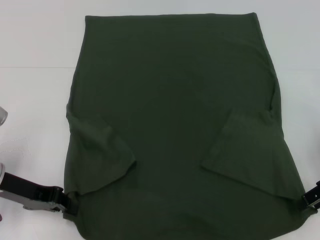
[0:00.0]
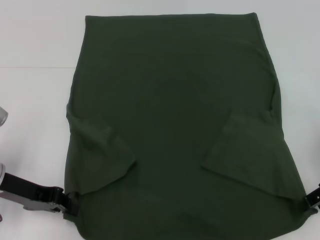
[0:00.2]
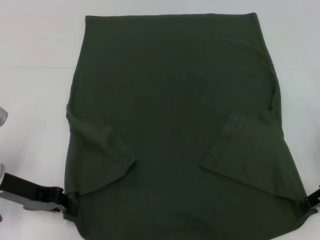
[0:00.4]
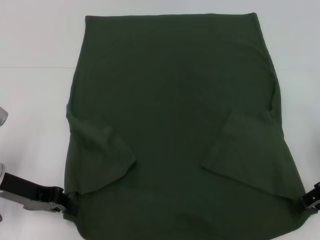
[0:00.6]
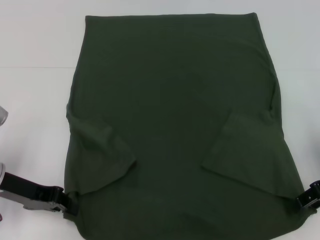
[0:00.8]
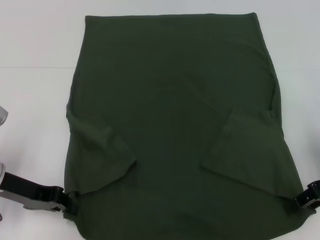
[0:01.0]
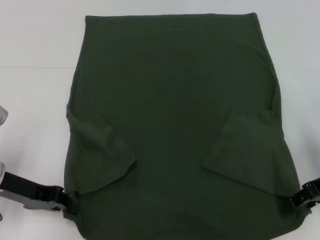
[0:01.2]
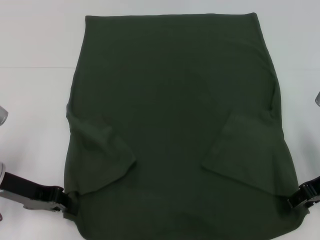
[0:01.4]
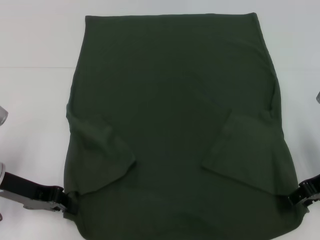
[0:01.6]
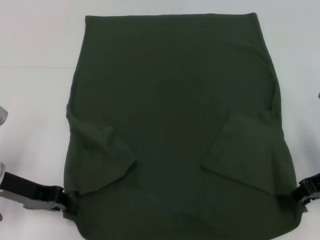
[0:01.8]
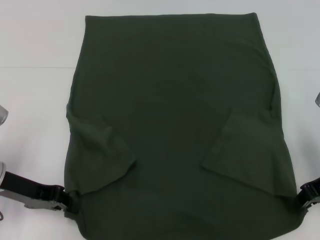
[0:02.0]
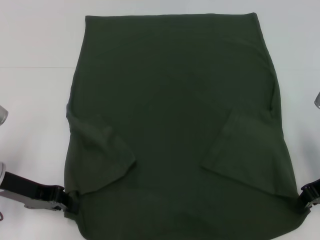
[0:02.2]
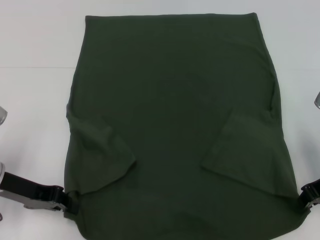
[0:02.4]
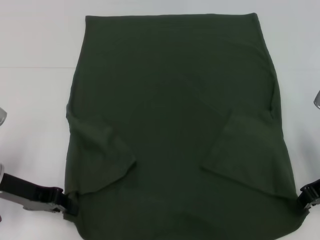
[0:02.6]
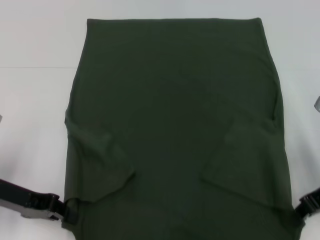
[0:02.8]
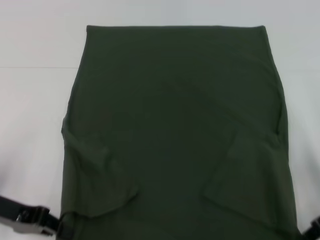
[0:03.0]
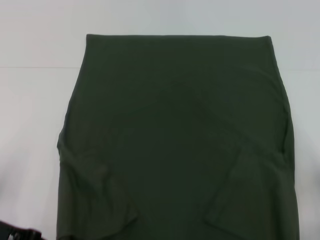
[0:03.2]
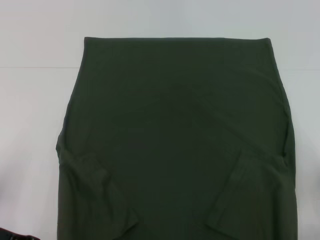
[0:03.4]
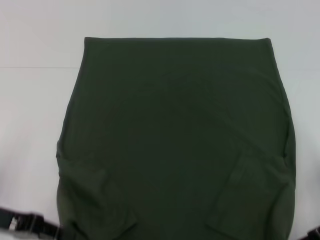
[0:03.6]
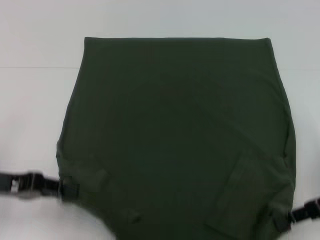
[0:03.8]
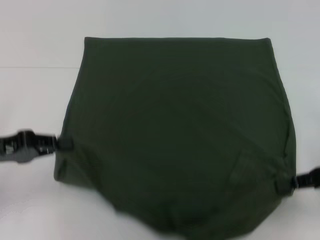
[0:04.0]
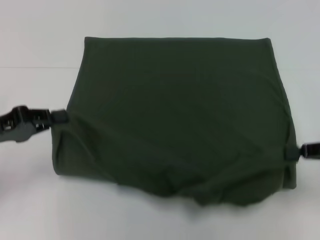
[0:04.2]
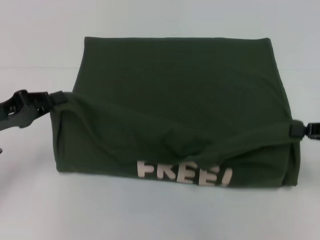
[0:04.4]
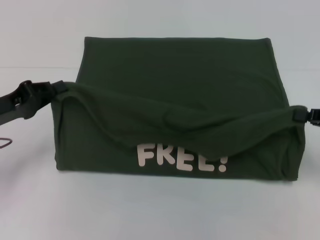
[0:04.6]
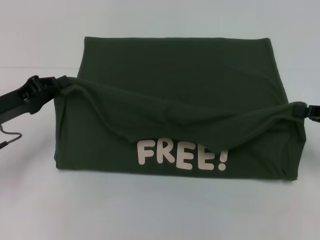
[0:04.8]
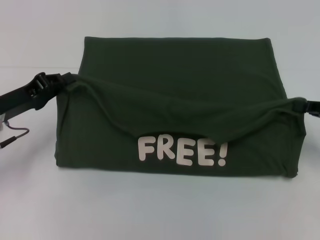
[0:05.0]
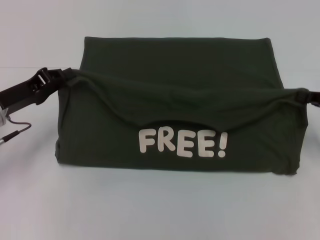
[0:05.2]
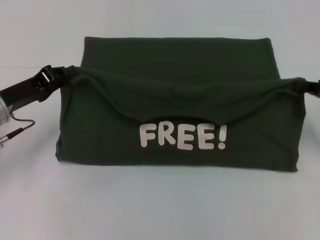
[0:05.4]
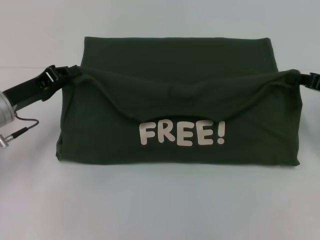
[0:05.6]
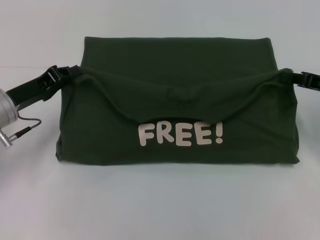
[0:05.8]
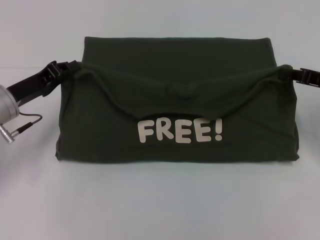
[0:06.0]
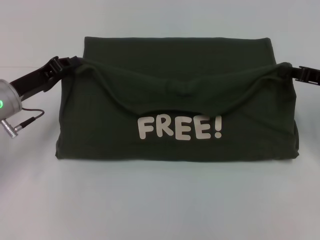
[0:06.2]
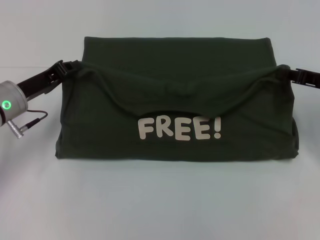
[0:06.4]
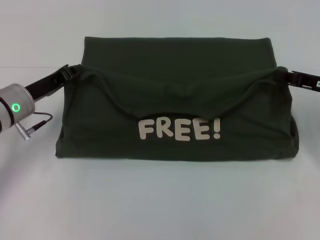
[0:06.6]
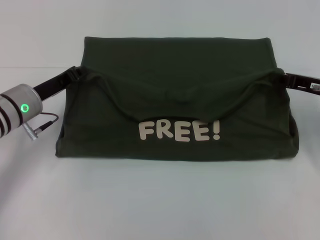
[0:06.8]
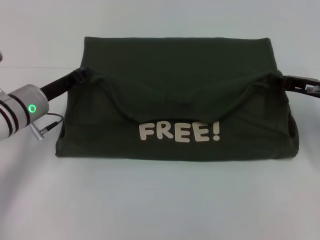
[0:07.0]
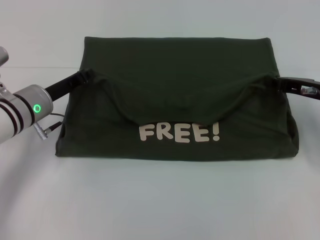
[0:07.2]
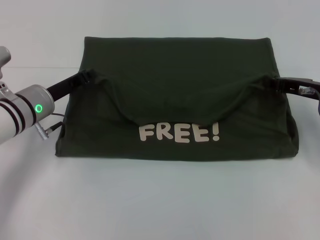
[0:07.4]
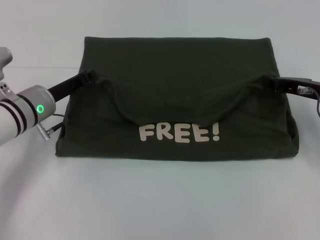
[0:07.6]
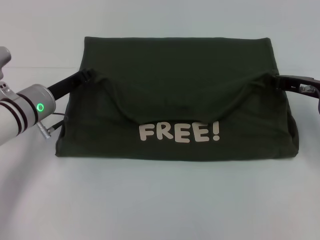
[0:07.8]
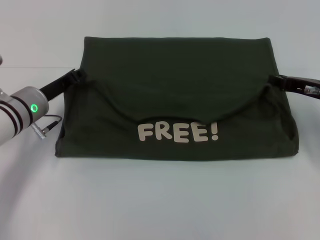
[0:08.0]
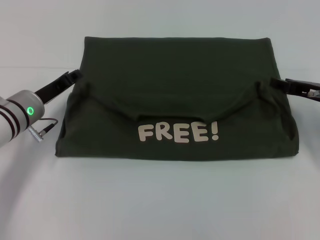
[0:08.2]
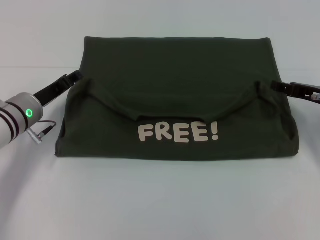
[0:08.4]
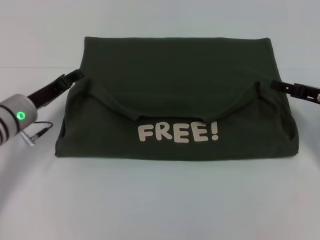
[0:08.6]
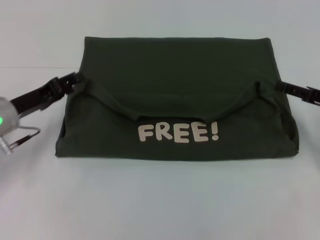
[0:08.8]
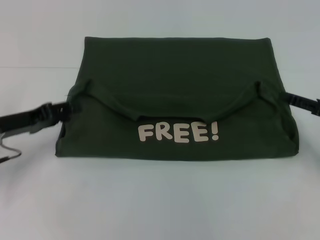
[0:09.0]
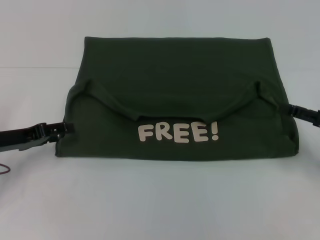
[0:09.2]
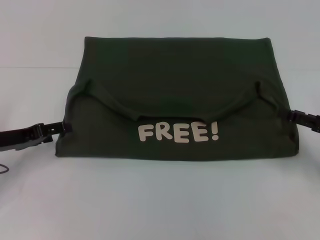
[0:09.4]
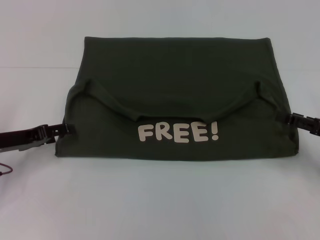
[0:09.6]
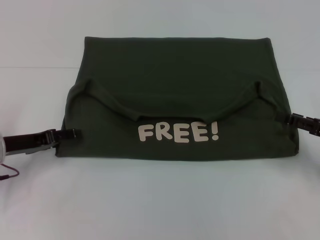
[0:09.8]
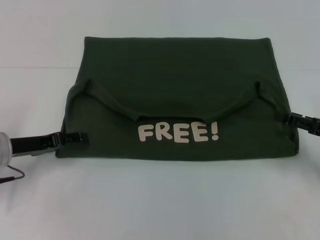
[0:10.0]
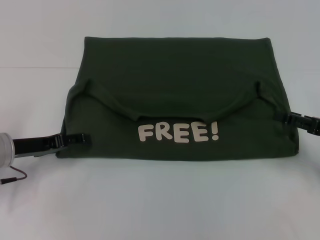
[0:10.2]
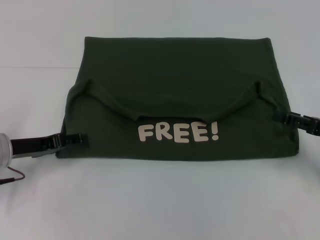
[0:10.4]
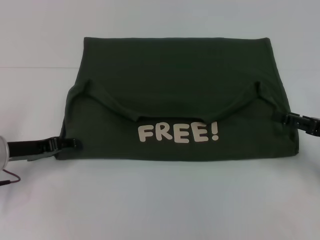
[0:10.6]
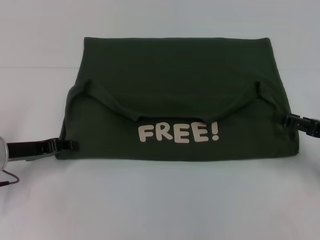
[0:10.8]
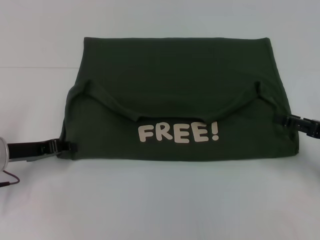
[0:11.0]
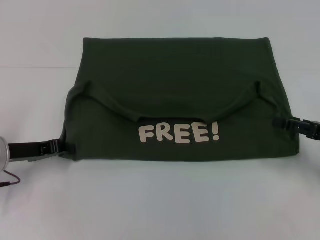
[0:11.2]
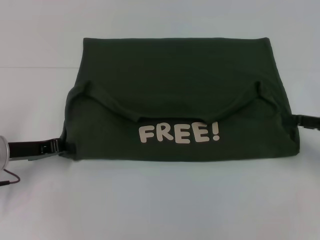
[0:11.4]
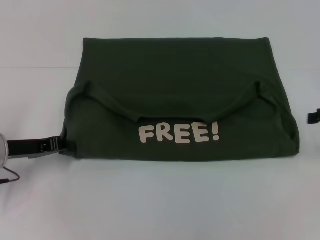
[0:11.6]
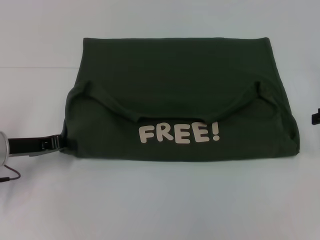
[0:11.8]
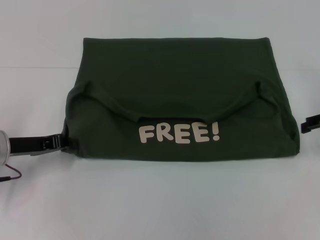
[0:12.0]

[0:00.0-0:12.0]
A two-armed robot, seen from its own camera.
Step, 0.0 to 9.0 s: Fold the clothes with your left hand.
Step, 0.0 to 9.0 s: Fold the clothes with your right hand.
0.0 to 1.6 s: The grippers move only a little.
1.6 to 3.0 s: The right gripper closes its fingers.
3.0 to 4.4 s: The right gripper heads to the right, covering some 5 cm.
4.4 to 6.0 s: Both grippers move forward, some 5 cm.
6.0 to 7.6 s: The right gripper moves approximately 5 cm, while the left gripper moves roughly 5 cm.
7.6 to 9.0 s: The right gripper heads backward and to the right, covering some 10 cm, and opens its fingers. The left gripper shifts about 10 cm to the left and backward, and opens its fingers.
9.0 to 10.4 s: The grippers stay close to where they were, moving slightly.
10.4 to 12.0 s: The left gripper closes. The right gripper shifts about 10 cm forward and upward.

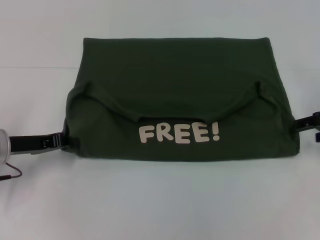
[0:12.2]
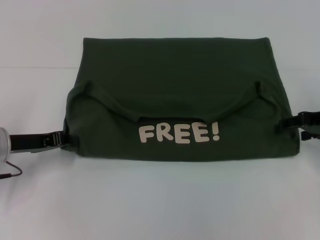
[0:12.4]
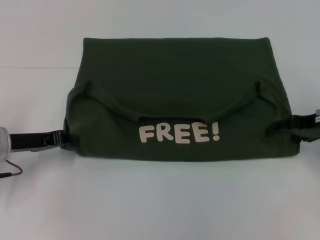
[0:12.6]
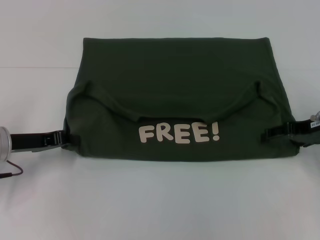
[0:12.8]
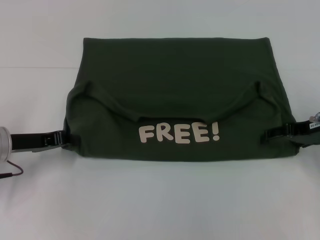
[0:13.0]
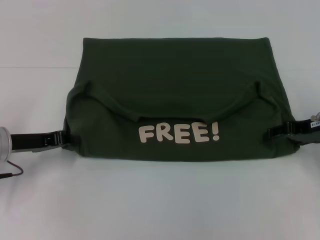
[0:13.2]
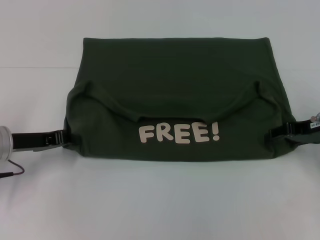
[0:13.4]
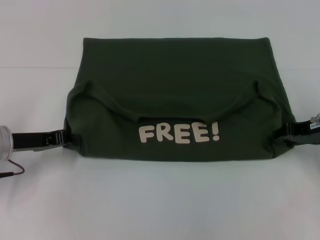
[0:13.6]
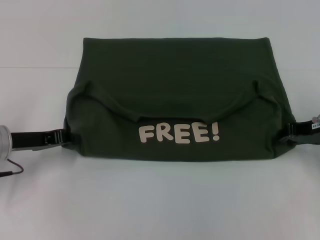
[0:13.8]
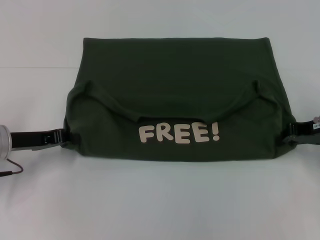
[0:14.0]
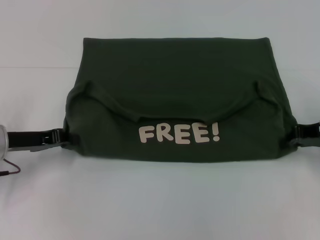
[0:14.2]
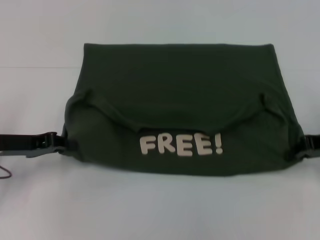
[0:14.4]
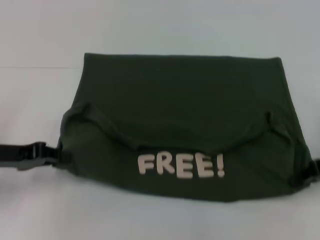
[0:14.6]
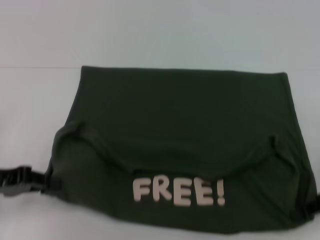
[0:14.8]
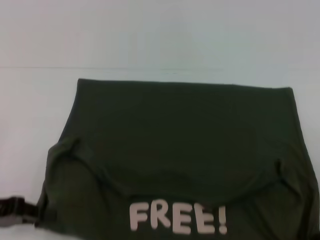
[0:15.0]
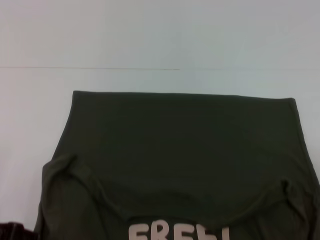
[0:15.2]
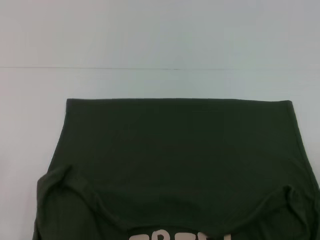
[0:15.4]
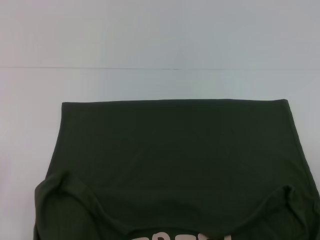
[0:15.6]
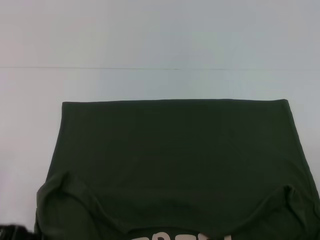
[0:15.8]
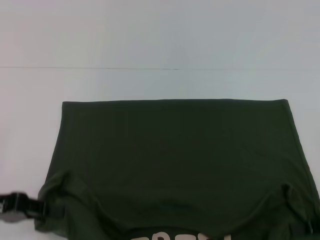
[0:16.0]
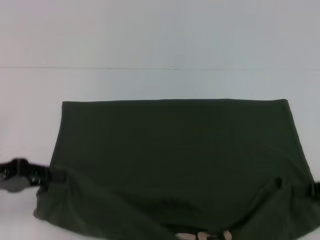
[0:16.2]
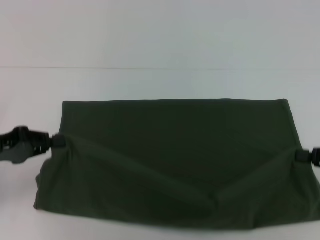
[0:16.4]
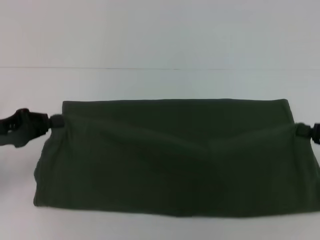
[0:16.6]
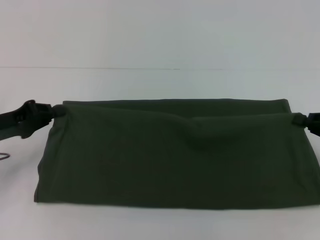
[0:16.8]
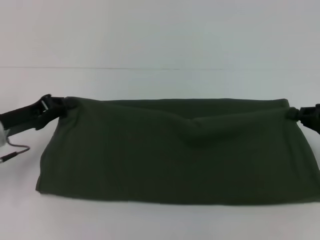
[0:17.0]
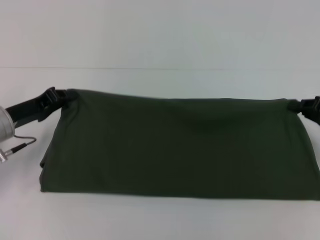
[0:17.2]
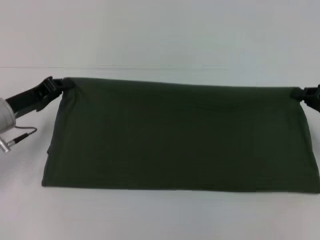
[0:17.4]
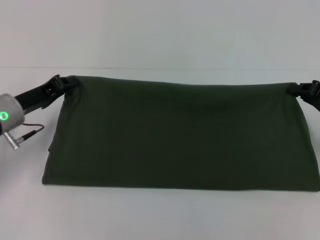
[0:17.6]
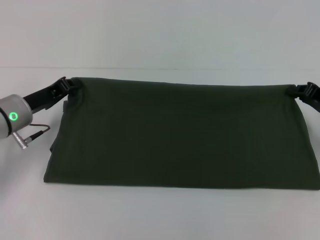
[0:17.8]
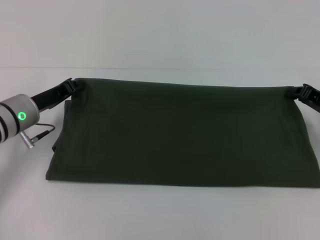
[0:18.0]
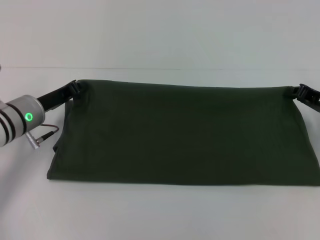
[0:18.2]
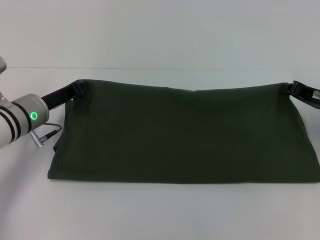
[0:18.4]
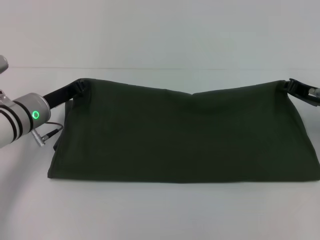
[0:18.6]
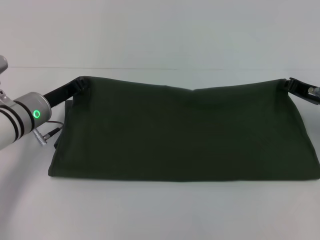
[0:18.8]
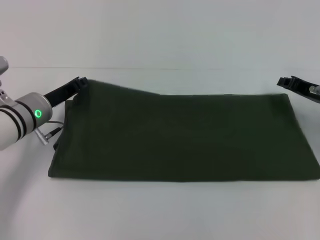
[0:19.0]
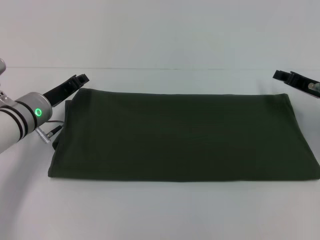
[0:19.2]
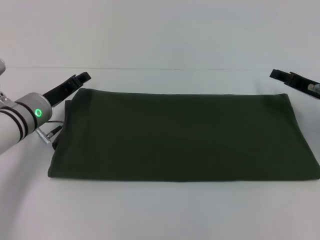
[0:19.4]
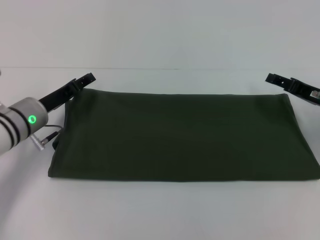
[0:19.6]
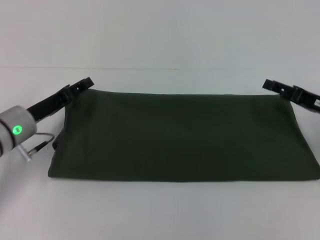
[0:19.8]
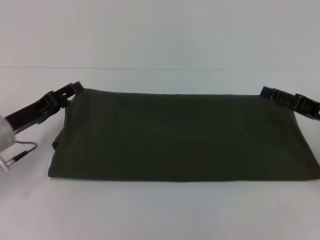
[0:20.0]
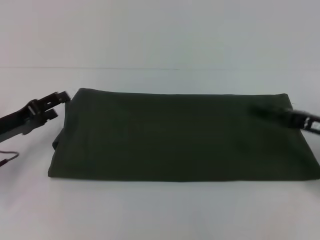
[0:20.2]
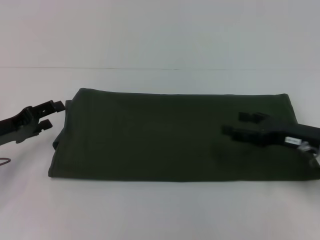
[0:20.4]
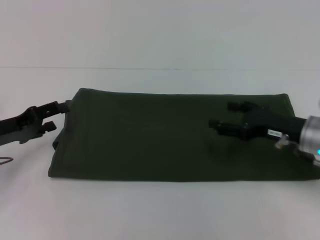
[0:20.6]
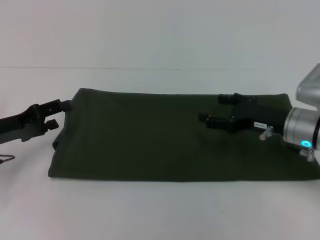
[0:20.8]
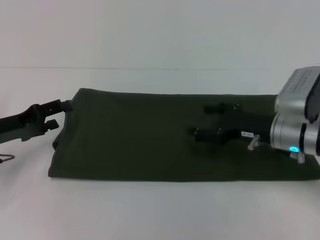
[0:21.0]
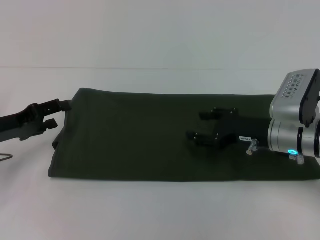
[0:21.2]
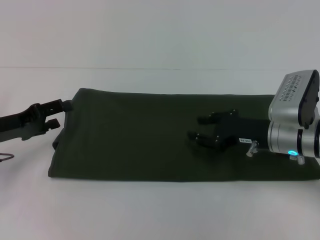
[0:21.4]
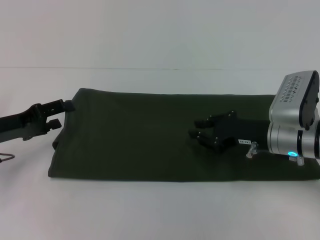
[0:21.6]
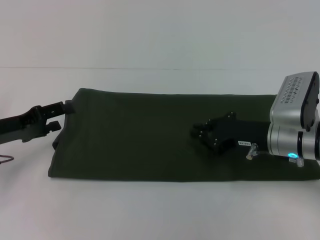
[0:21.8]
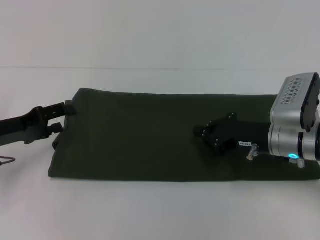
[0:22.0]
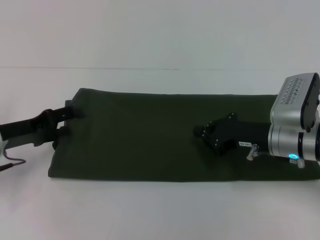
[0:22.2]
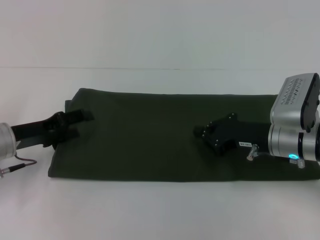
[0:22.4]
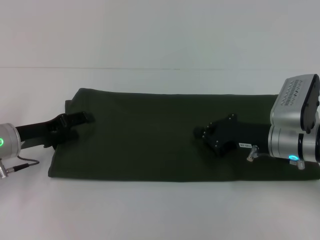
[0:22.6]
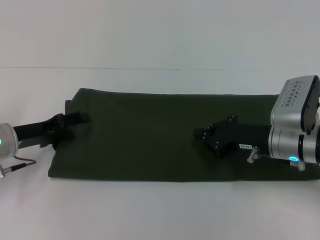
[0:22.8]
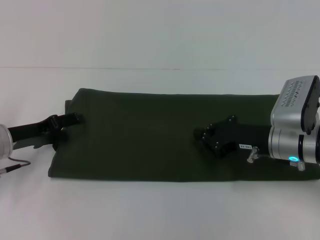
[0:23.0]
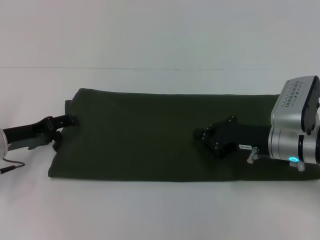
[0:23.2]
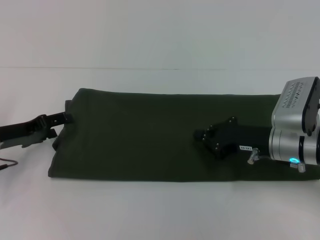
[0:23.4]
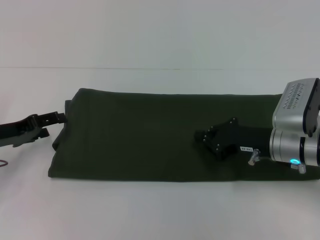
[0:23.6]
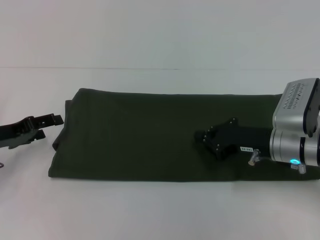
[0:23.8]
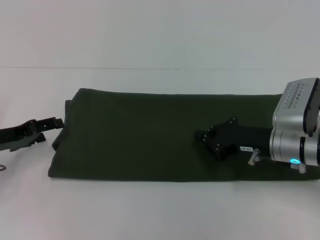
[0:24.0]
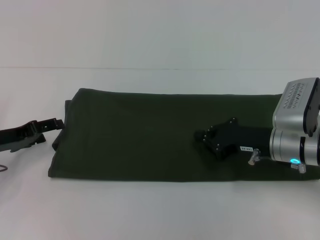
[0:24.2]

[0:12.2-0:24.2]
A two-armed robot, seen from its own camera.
Step, 12.2 to 15.4 s: Pull the clothes with your left hand.
Step, 12.2 to 15.4 s: Pull the clothes with your right hand.
Step, 15.6 to 19.4 s: Fold the clothes with your right hand.
12.2 to 13.8 s: The right gripper closes its fingers.
13.8 to 15.2 s: Both grippers travel together backward, some 10 cm. The right gripper closes up.
15.2 to 16.6 s: The left gripper is displaced forward by about 5 cm, while the right gripper shifts by some 5 cm.
16.6 to 18.2 s: The right gripper moves forward and to the left, about 10 cm, while the left gripper moves to the right and forward, roughly 10 cm.
18.2 to 19.8 s: The right gripper opens up. The left gripper opens.
19.8 to 21.2 s: The right gripper shifts some 10 cm to the left. The left gripper travels to the left by about 5 cm.
21.2 to 22.6 s: The right gripper closes.
22.6 to 24.2 s: The grippers move only a little.
